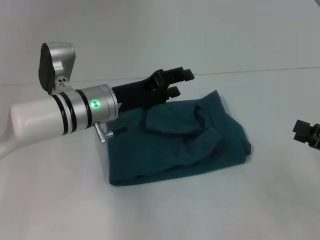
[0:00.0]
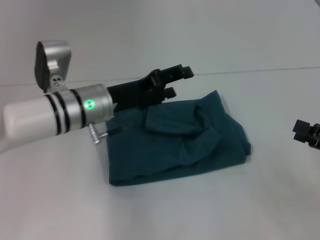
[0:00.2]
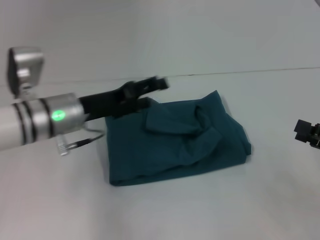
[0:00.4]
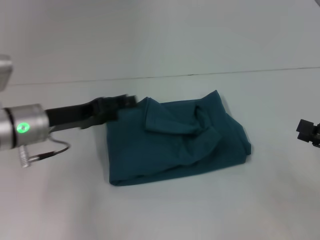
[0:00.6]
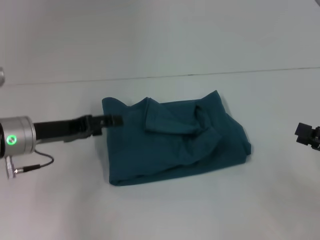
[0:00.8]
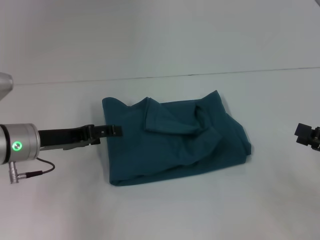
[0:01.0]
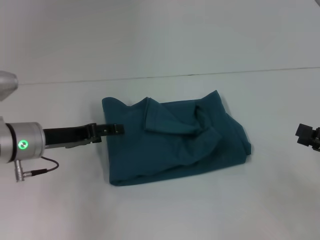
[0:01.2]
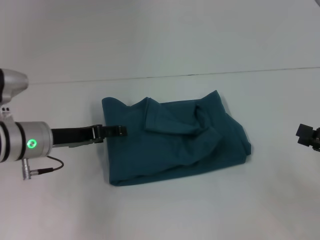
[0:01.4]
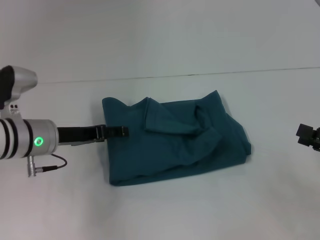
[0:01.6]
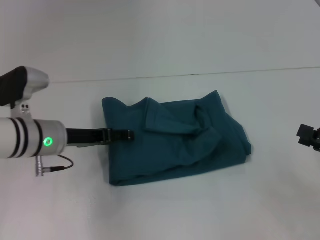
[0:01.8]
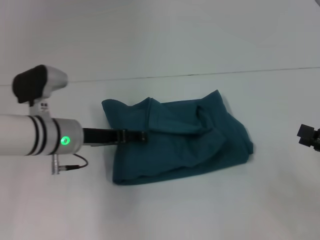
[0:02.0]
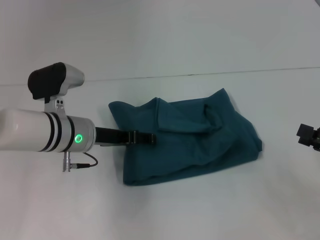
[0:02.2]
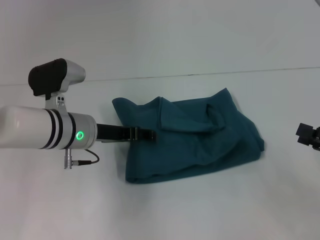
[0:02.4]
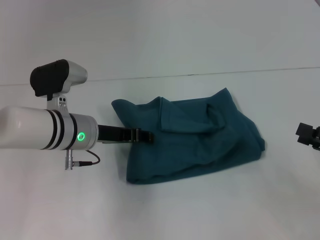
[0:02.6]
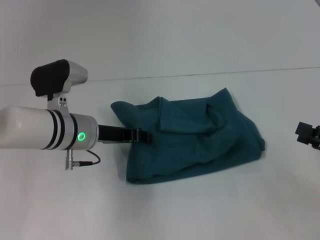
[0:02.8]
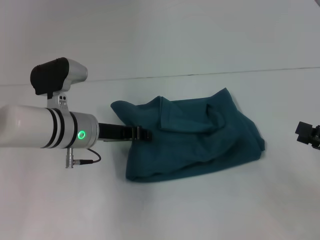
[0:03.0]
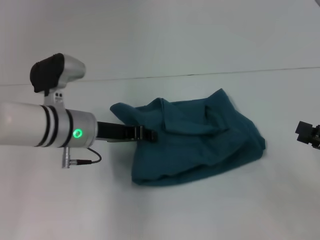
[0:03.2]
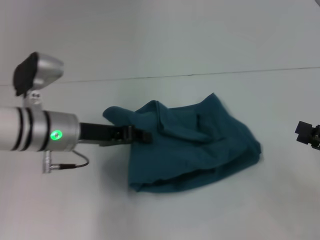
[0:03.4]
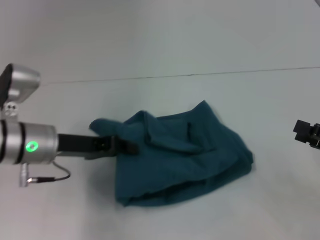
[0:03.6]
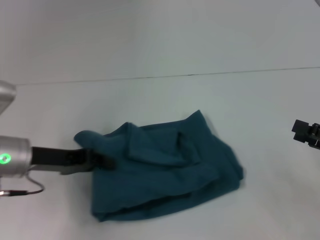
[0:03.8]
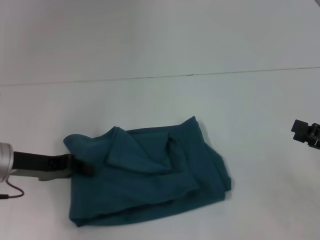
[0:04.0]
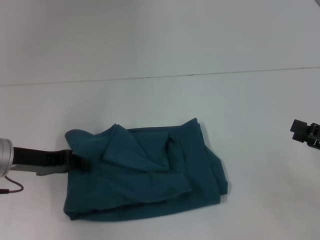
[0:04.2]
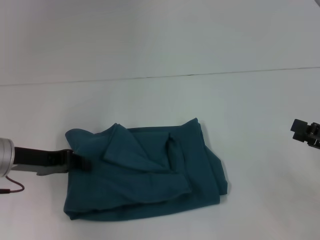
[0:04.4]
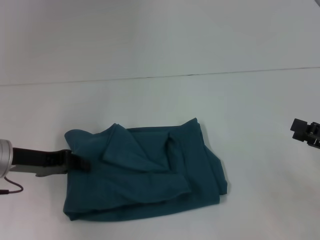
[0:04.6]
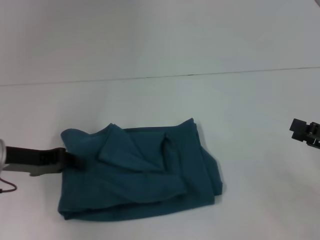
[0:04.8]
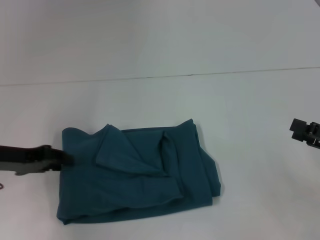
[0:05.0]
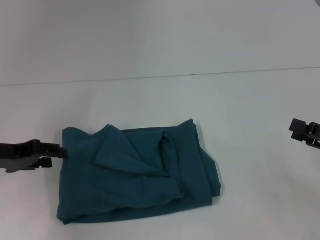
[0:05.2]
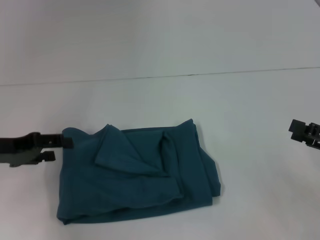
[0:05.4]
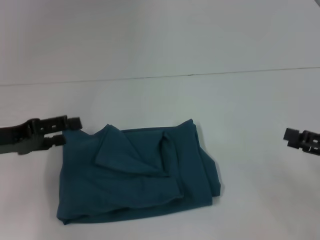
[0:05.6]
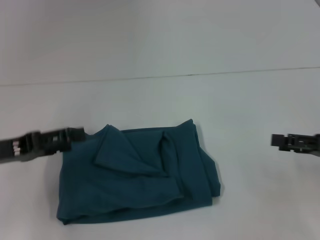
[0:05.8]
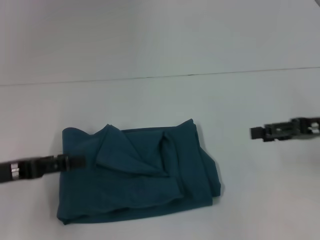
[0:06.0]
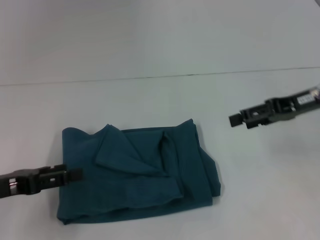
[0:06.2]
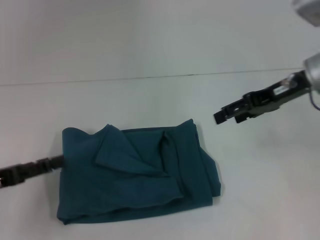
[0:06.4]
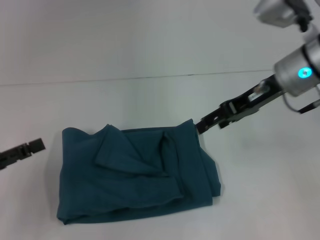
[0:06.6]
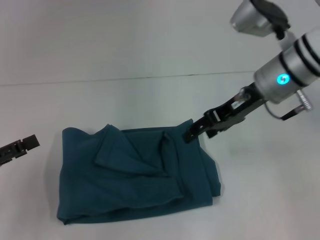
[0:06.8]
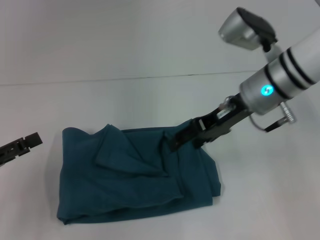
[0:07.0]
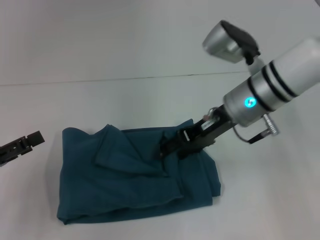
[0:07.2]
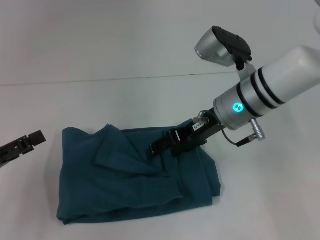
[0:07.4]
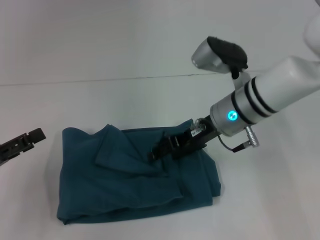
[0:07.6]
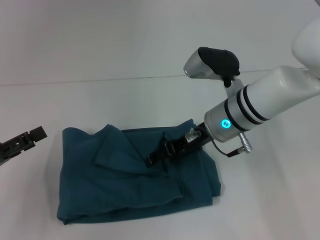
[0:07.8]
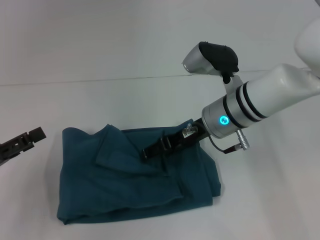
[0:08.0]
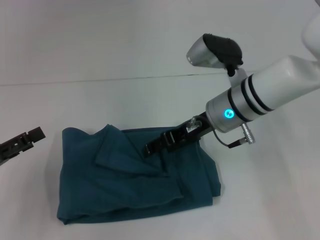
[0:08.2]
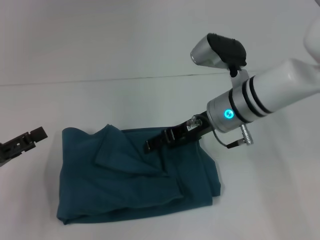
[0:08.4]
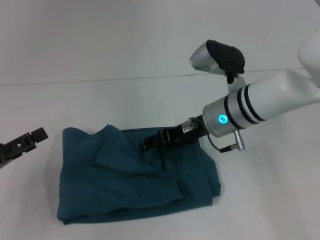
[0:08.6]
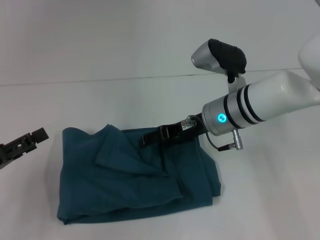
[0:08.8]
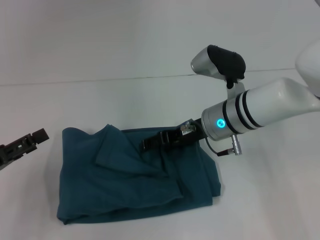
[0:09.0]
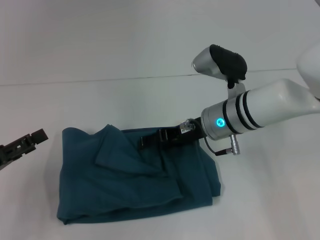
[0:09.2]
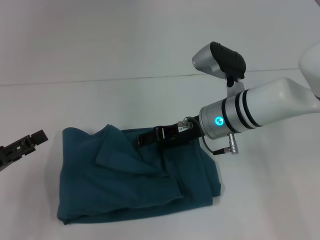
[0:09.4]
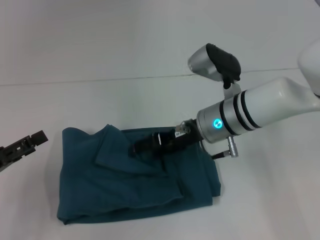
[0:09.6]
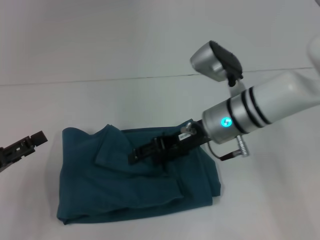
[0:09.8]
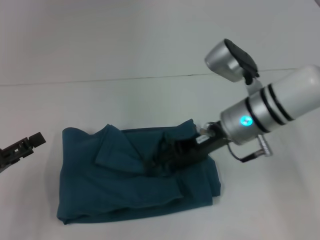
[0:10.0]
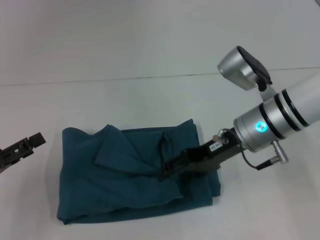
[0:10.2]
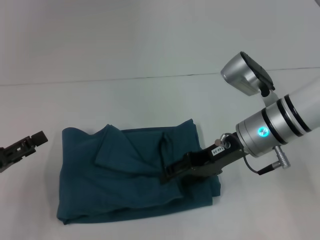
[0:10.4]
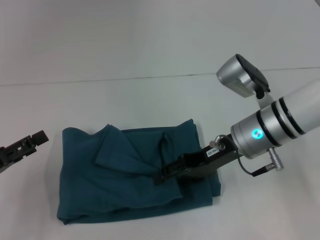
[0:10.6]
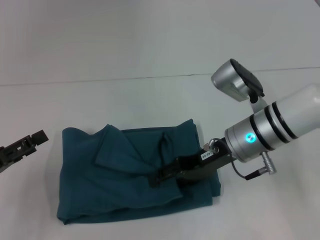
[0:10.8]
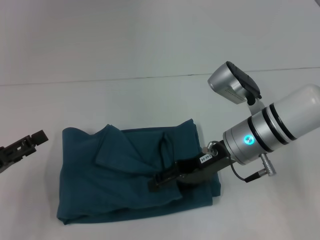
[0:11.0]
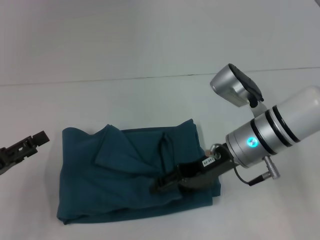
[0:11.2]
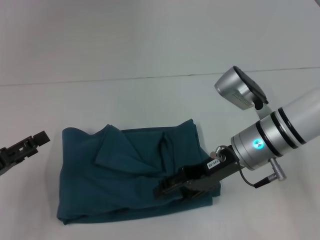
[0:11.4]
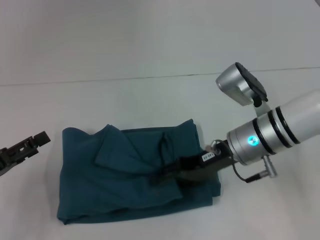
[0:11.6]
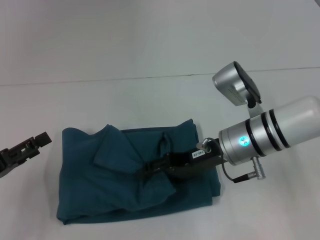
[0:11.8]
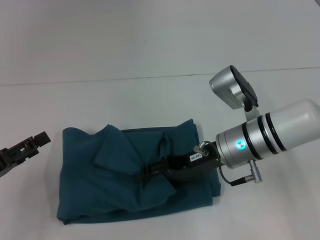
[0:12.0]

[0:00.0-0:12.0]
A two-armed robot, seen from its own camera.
0:00.0 to 0:01.6: The left gripper heads to the left, covering about 10 cm, and opens its fingers.
0:01.6 to 0:03.0: The left gripper is displaced to the right by about 5 cm, and closes.
0:03.0 to 0:04.4: The left gripper is displaced to the left by about 10 cm.
0:04.4 to 0:06.0: The right gripper is displaced forward and upward by about 10 cm; the left gripper shifts roughly 5 cm backward, and opens up.
0:06.0 to 0:07.6: The right gripper goes approximately 20 cm to the left.
0:07.6 to 0:09.0: The grippers make only small movements.
0:09.0 to 0:10.4: The right gripper changes place by some 5 cm.
0:10.4 to 0:12.0: The grippers move only a little.

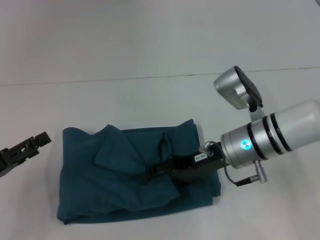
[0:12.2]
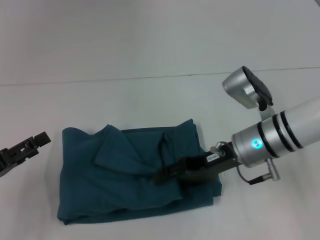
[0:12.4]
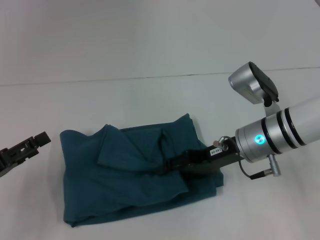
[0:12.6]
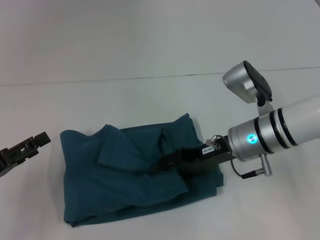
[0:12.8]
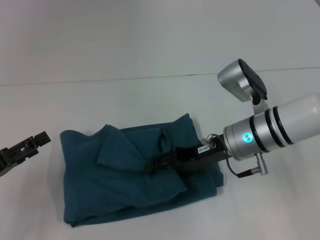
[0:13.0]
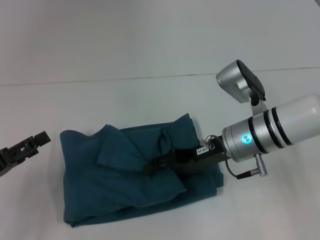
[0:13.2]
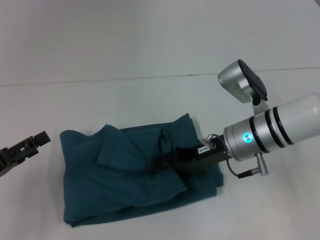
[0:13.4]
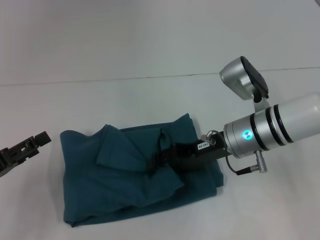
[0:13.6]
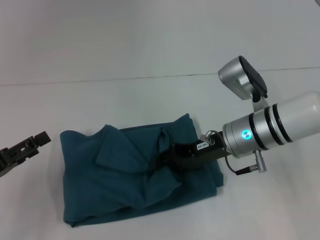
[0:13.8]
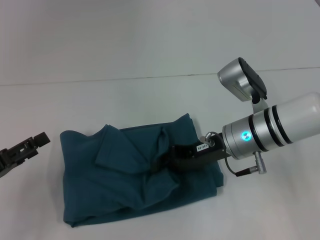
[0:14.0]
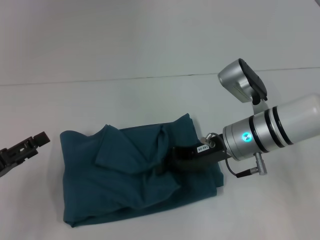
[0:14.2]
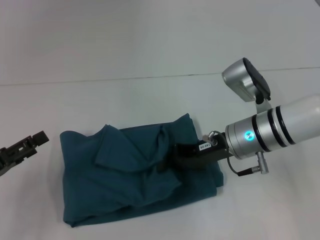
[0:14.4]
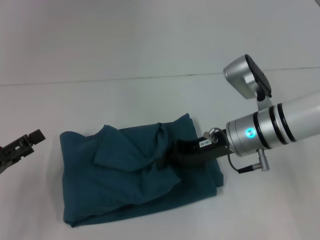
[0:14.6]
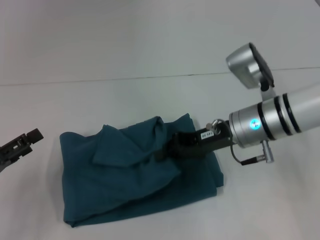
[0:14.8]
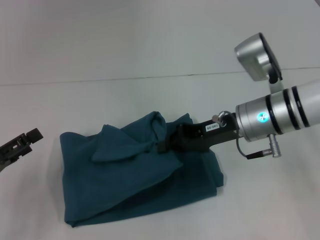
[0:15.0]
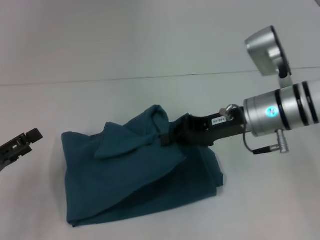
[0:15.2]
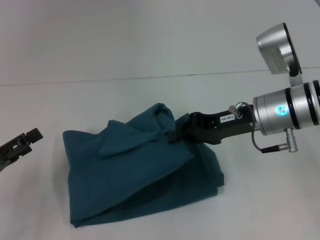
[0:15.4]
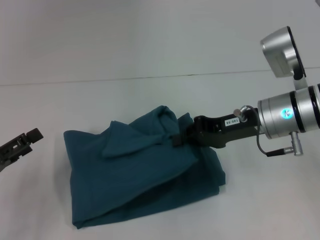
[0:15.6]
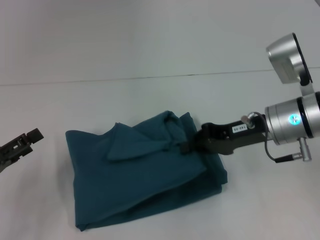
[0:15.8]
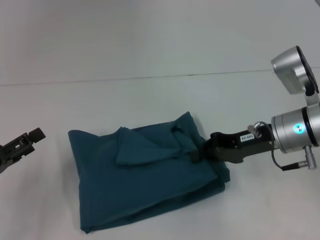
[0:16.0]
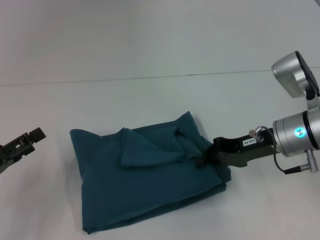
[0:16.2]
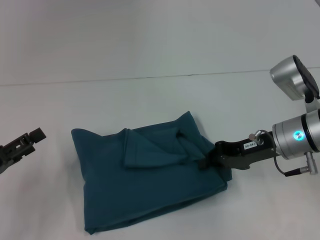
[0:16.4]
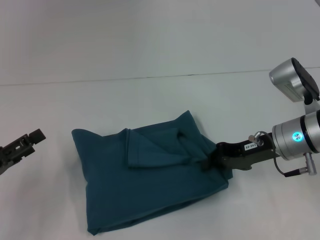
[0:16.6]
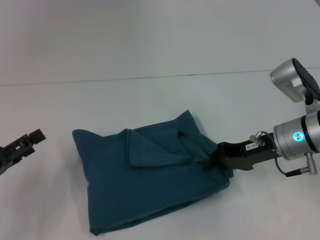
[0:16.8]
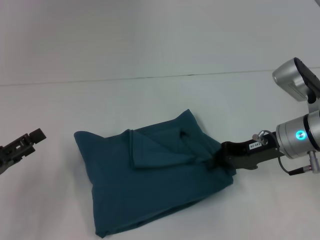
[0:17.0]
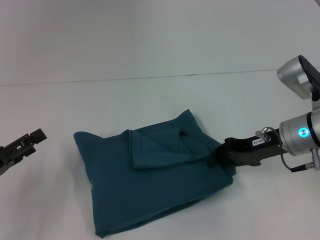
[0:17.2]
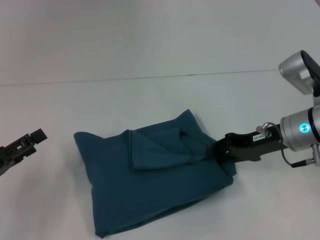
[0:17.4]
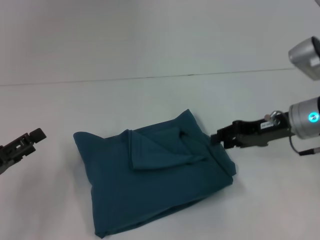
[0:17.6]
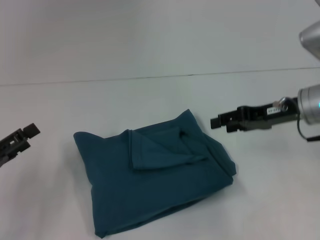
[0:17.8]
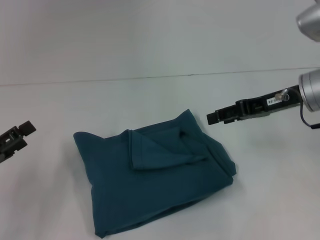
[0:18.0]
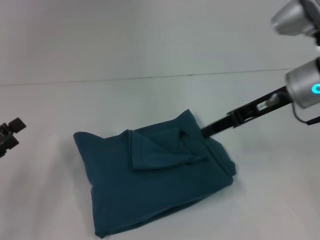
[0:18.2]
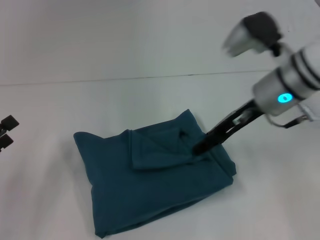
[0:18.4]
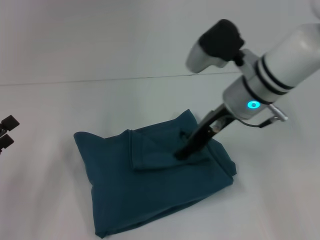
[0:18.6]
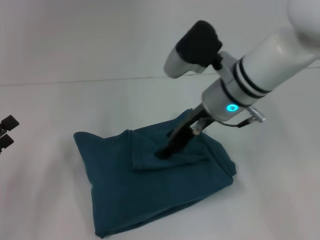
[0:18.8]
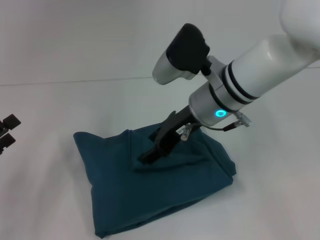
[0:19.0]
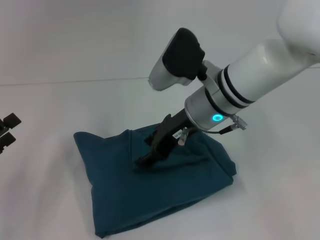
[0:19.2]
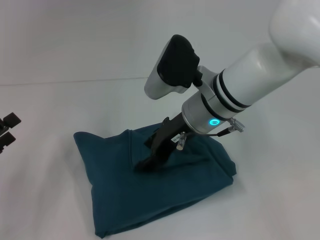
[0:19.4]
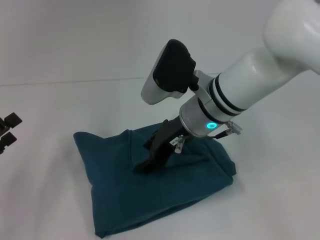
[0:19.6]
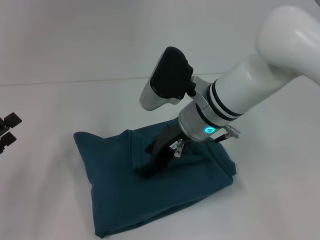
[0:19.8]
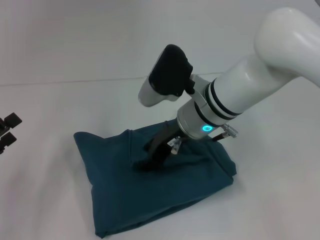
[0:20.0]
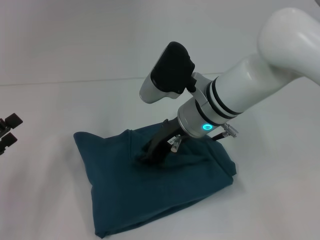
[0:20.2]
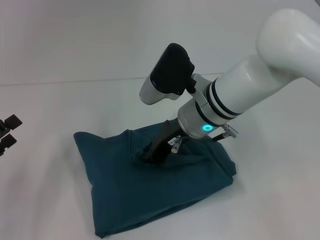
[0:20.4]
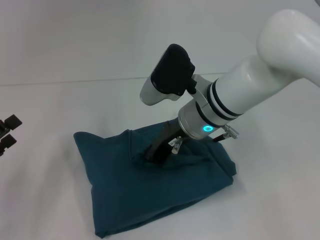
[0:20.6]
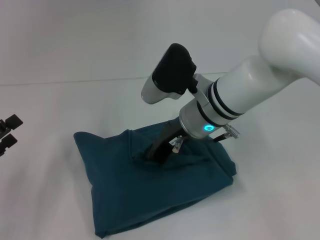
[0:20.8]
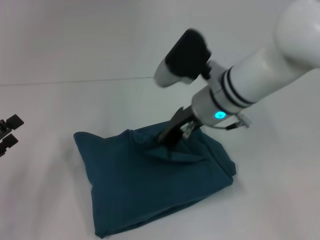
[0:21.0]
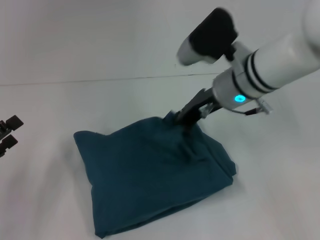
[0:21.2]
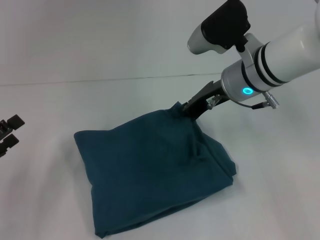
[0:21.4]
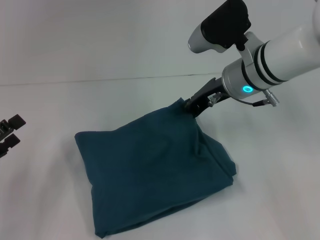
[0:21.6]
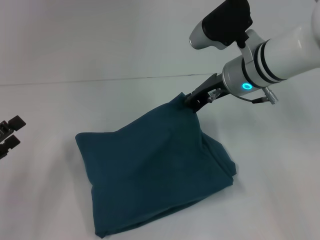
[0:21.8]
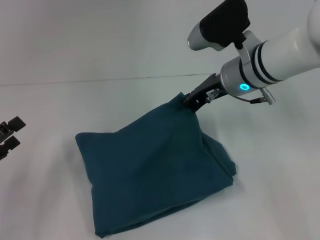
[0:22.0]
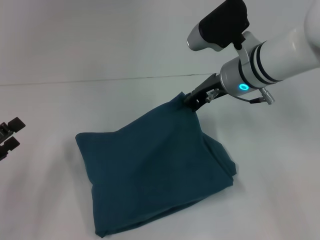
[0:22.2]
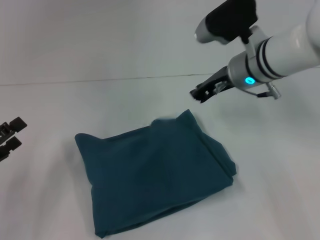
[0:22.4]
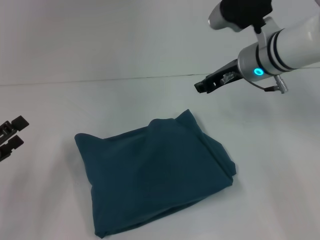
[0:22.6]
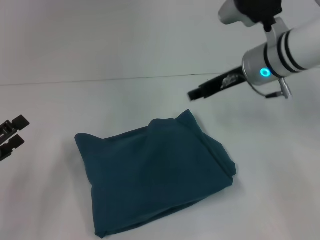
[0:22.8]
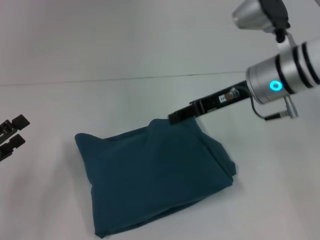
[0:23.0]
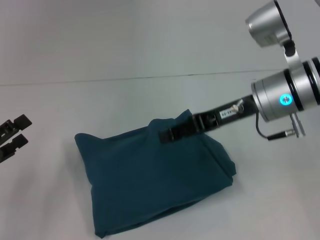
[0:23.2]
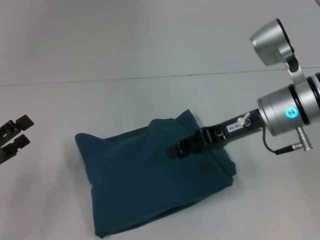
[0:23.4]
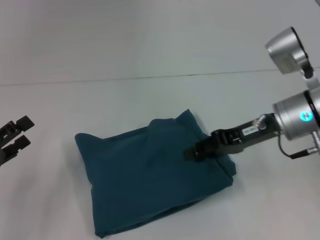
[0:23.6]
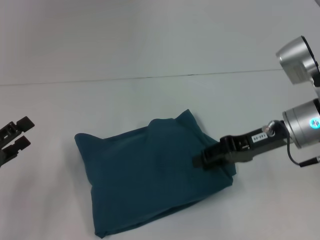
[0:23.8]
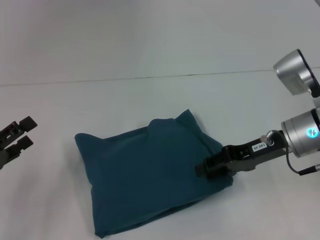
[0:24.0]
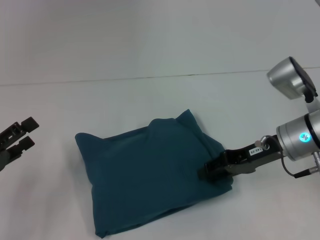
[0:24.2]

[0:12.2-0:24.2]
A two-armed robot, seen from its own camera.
0:12.2 to 0:13.8: The grippers stay close to where they were, moving slightly.
0:13.8 to 0:15.2: The right gripper closes up.
0:15.2 to 0:16.6: The right gripper changes place by some 5 cm.
0:16.6 to 0:18.2: The right gripper is displaced upward by about 10 cm, and opens up.
0:18.2 to 0:19.8: The right gripper goes about 15 cm to the left.
0:19.8 to 0:21.2: The right gripper is displaced to the right by some 5 cm, and closes.
0:21.2 to 0:22.6: The right gripper shifts by some 5 cm.
0:22.6 to 0:24.2: The right gripper is displaced backward, downward and to the right by about 10 cm.
